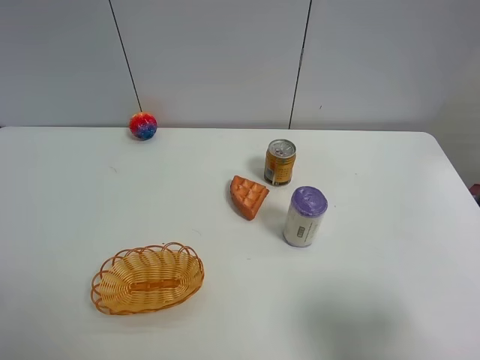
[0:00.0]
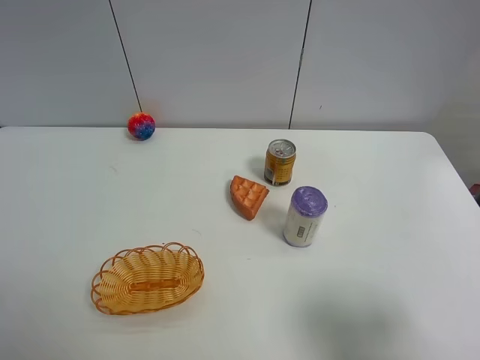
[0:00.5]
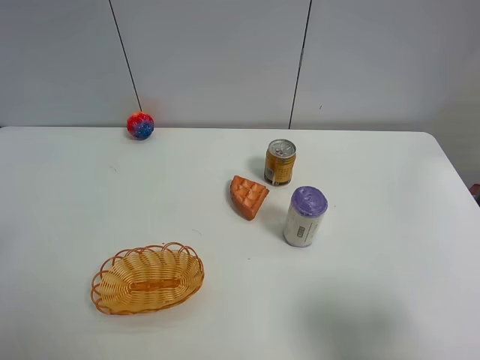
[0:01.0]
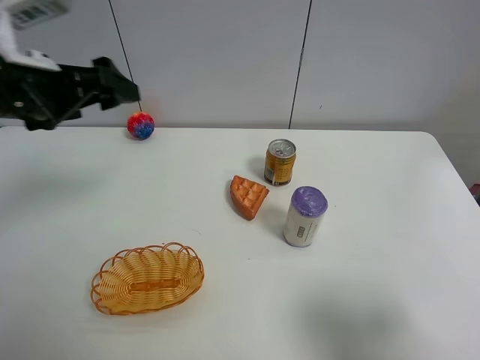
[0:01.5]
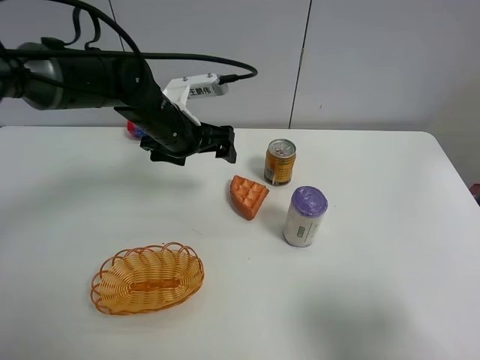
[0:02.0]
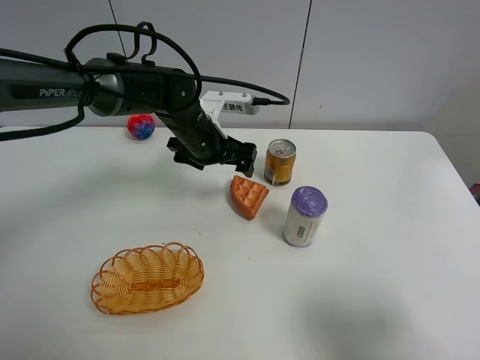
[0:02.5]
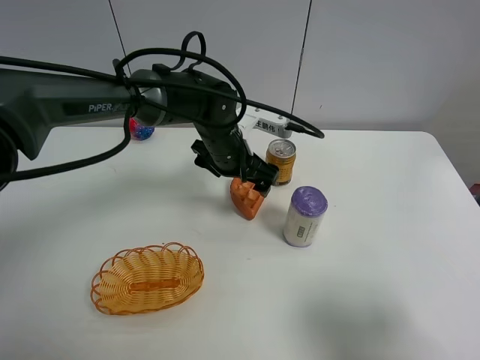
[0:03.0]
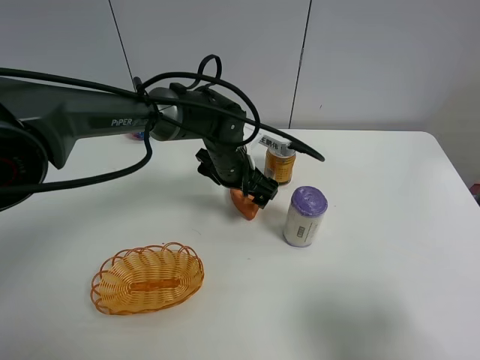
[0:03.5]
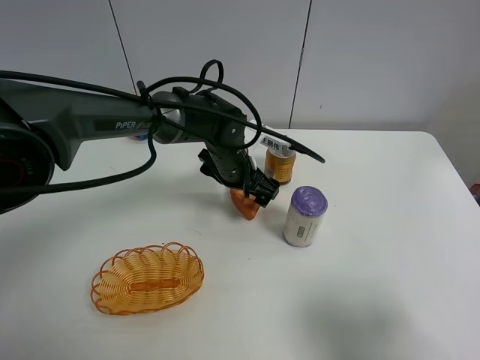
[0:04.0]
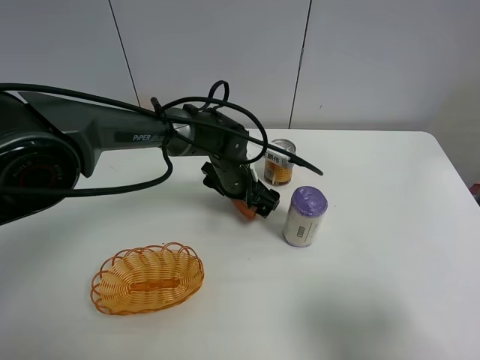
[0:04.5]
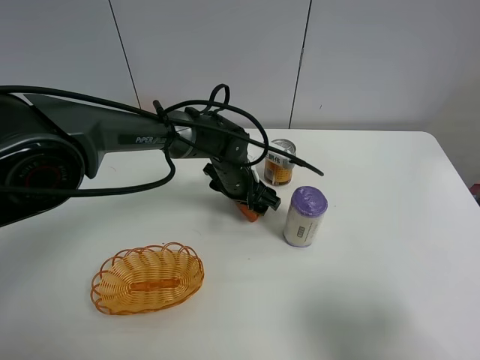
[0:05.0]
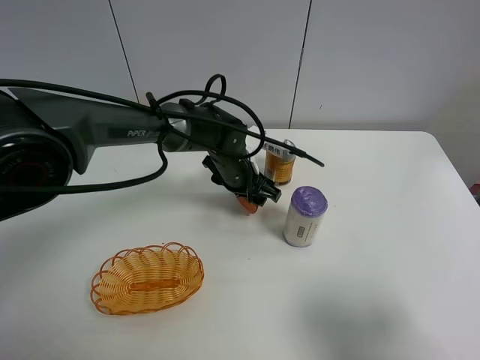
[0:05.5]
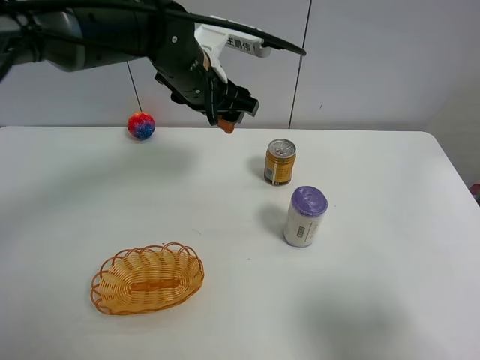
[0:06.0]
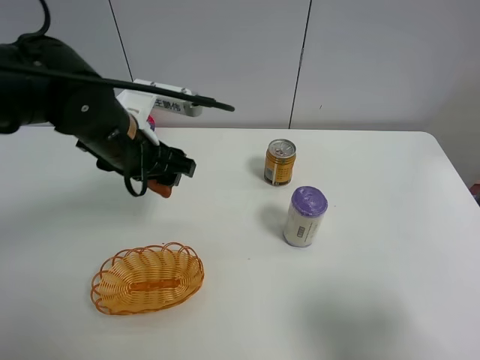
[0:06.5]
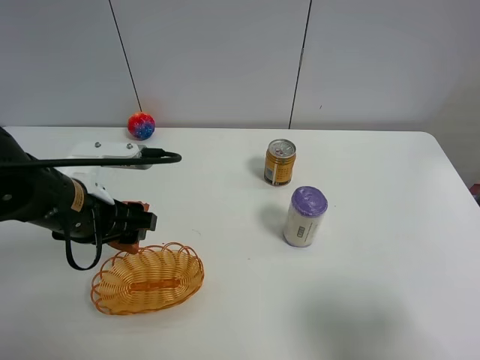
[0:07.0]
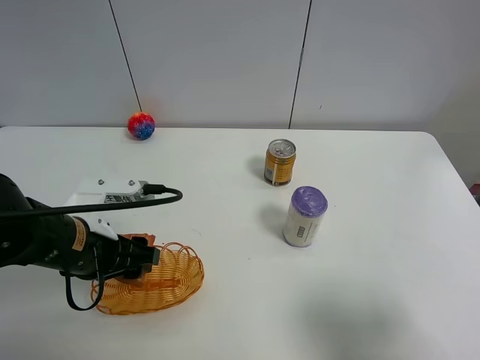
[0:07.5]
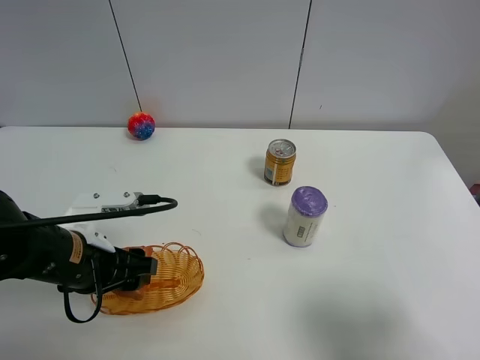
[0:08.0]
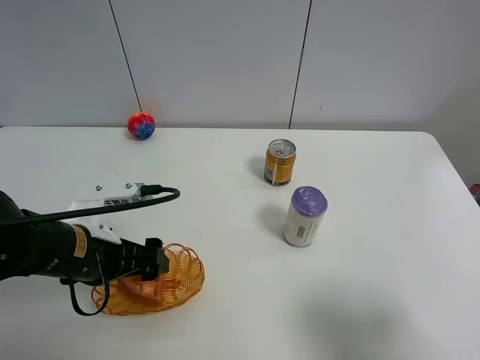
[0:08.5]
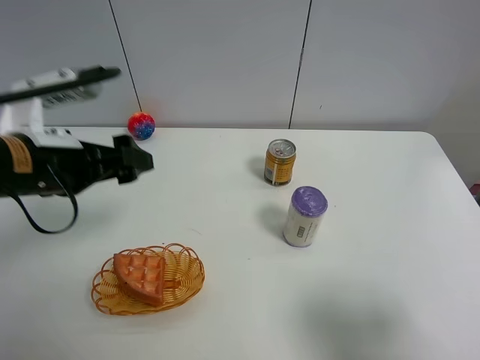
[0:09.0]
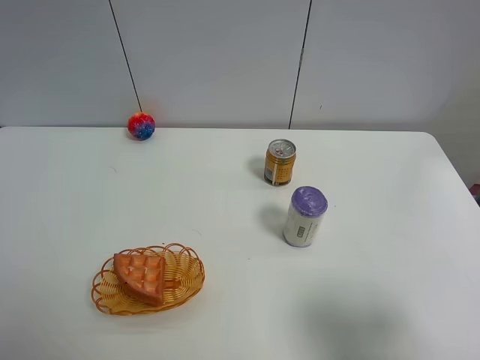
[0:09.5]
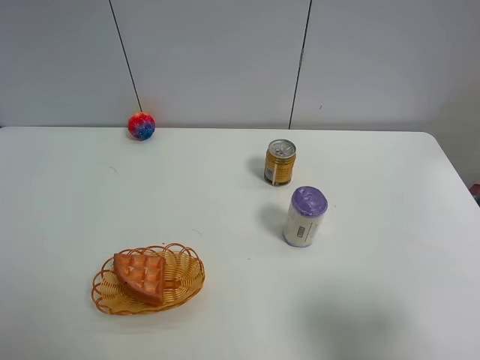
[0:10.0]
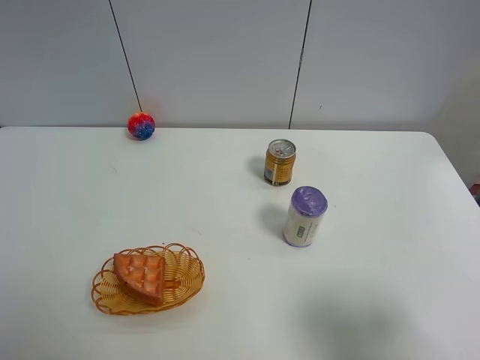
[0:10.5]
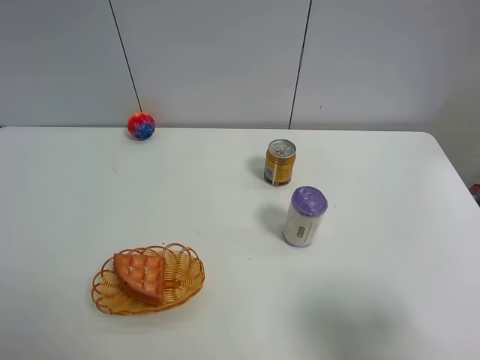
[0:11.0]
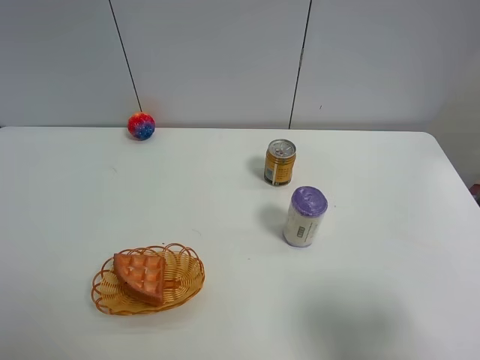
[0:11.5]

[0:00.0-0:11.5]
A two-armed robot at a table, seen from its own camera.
Task of the whole recording: Put the bakery in the basket.
0:00.0 to 0:02.0: The left gripper moves forward and to the right, approximately 40 cm.
0:02.0 to 0:04.0: The left gripper is displaced to the right and downward by about 10 cm.
0:04.0 to 0:06.0: The left gripper goes approximately 15 cm upward, and closes its fingers.
0:06.0 to 0:07.5: The left gripper travels backward, to the left and downward by about 25 cm.
0:07.5 to 0:09.5: The left gripper travels upward and to the left by about 25 cm, and opens up.

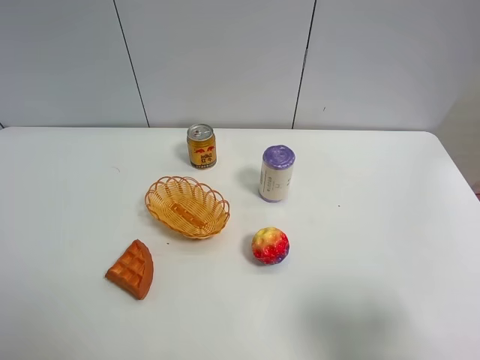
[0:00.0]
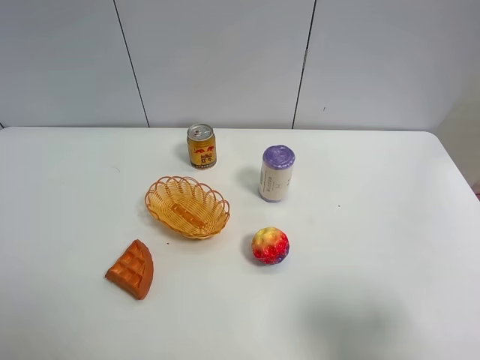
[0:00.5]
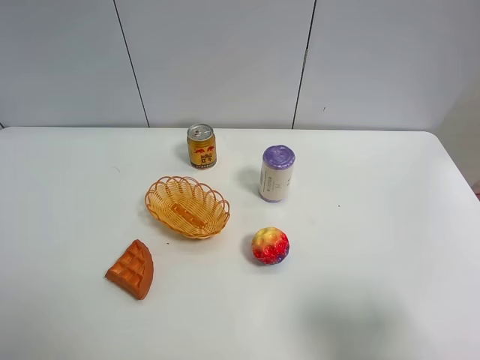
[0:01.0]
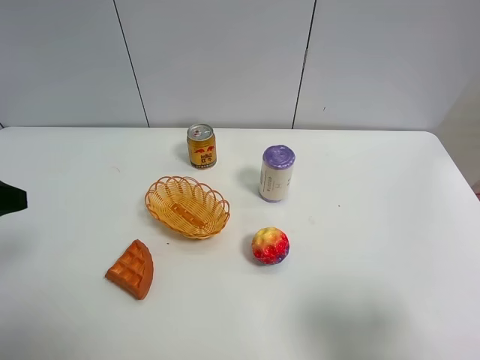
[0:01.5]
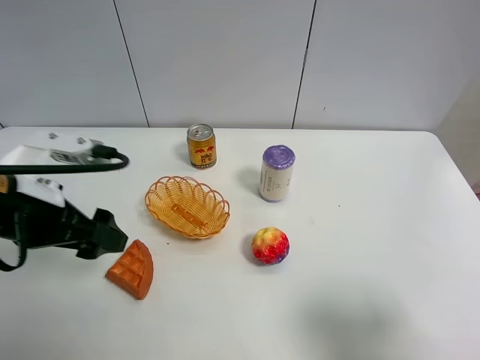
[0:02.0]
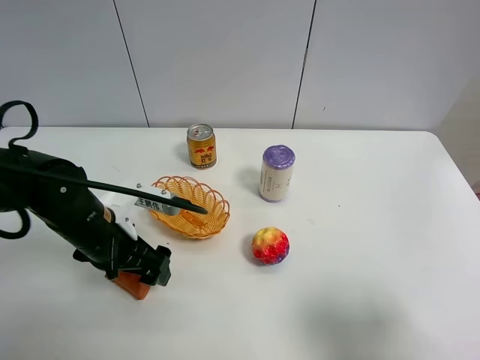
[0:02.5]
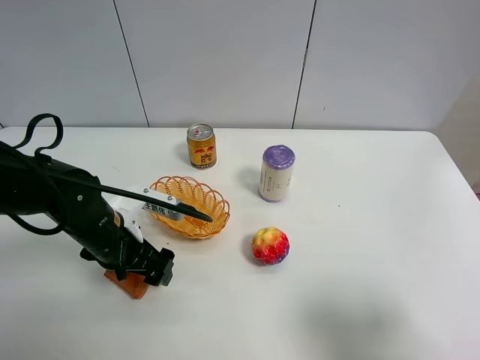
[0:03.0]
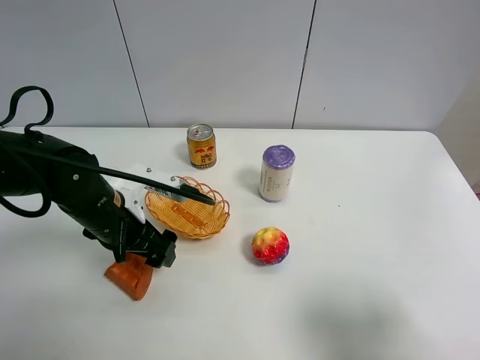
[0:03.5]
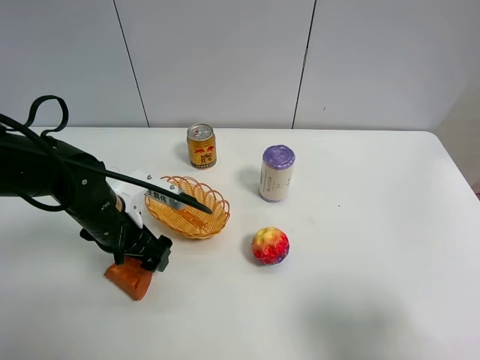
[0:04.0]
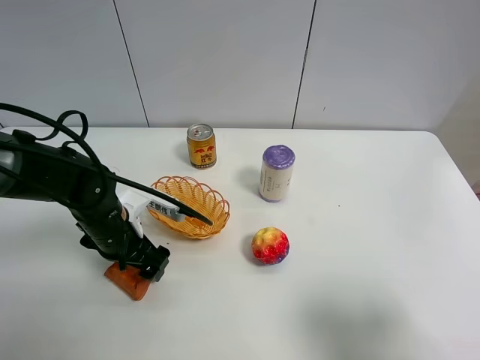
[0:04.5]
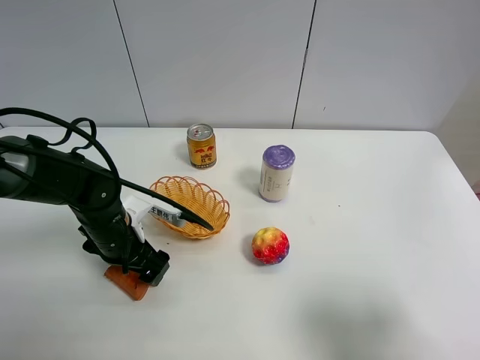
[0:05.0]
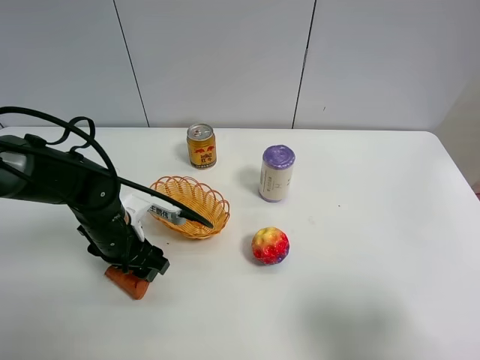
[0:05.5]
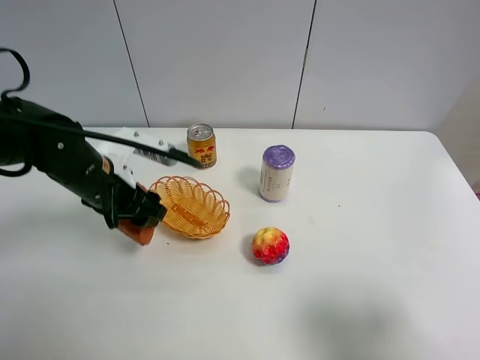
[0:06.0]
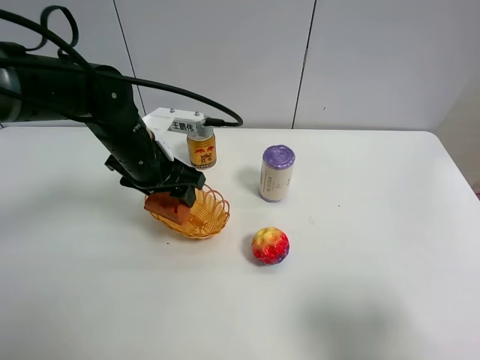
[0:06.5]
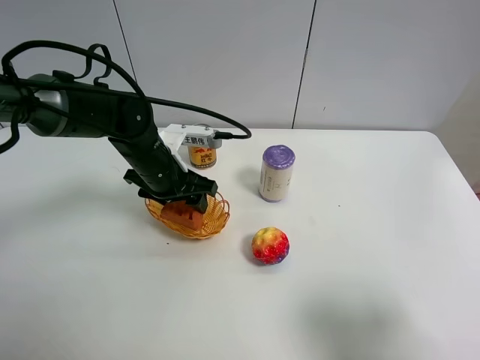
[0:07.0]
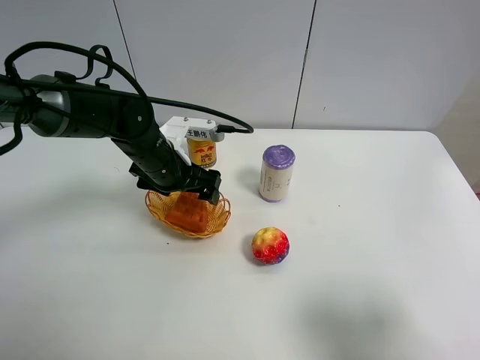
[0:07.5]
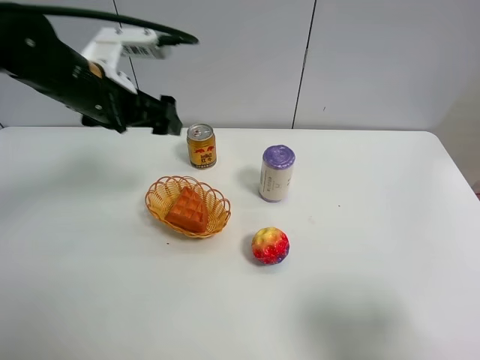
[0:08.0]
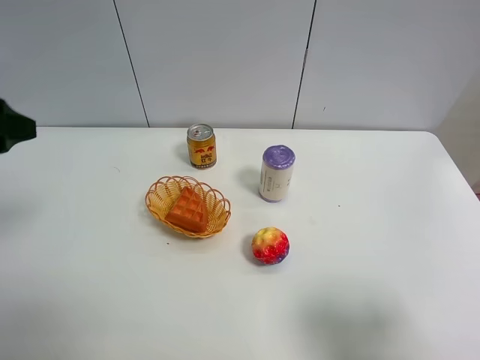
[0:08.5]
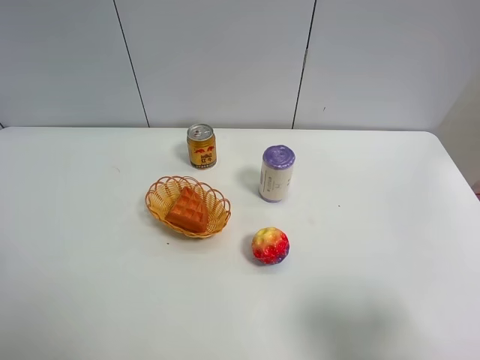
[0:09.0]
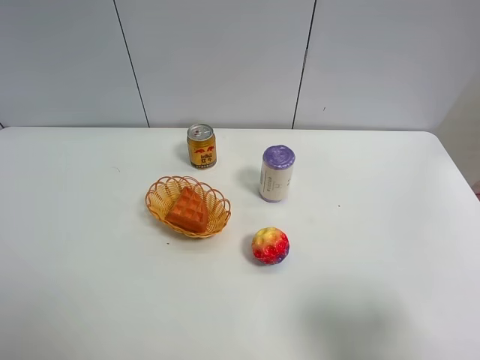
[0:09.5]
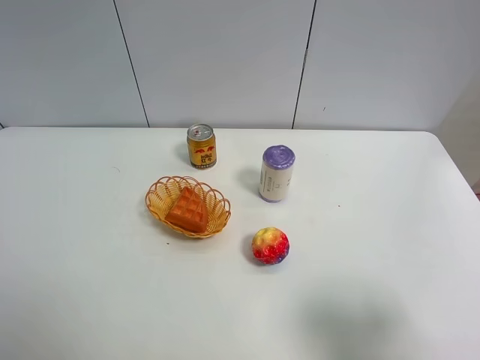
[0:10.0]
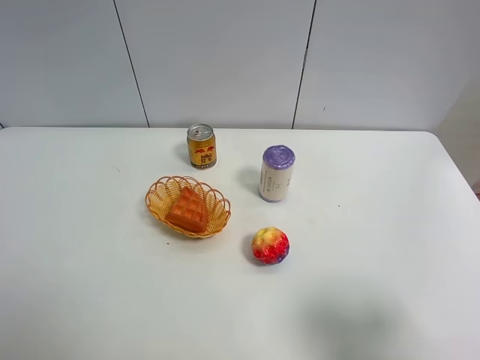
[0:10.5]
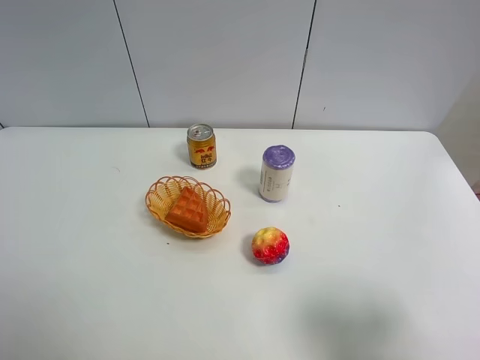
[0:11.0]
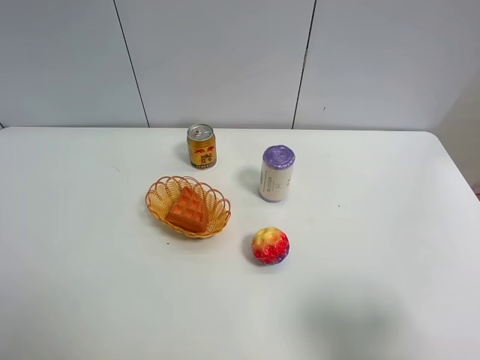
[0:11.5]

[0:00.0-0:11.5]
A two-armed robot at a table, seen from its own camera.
Task of the whole recording: Put the bakery in the basket.
0:00.0 to 0:02.0: The left gripper is displaced forward and to the right by some 20 cm.
0:02.0 to 0:04.0: The left gripper moves downward and forward, roughly 10 cm.
0:04.0 to 0:06.0: The left gripper travels upward by roughly 5 cm, and closes.
0:06.0 to 0:07.5: The left gripper is displaced forward and to the right by about 10 cm, and opens its fingers.
0:07.5 to 0:09.5: The left gripper is displaced backward, to the left and upward by some 40 cm.
